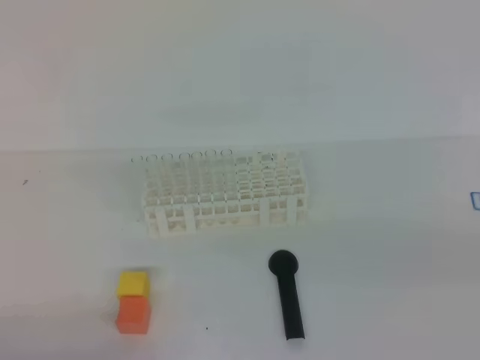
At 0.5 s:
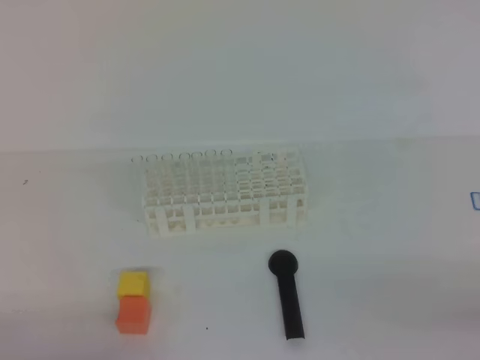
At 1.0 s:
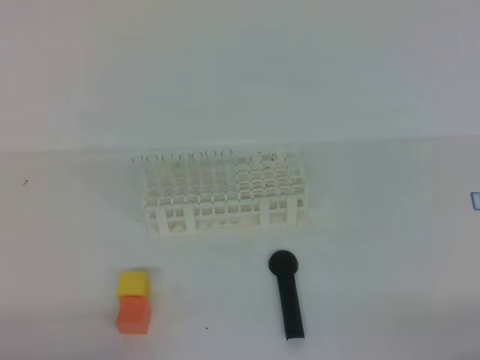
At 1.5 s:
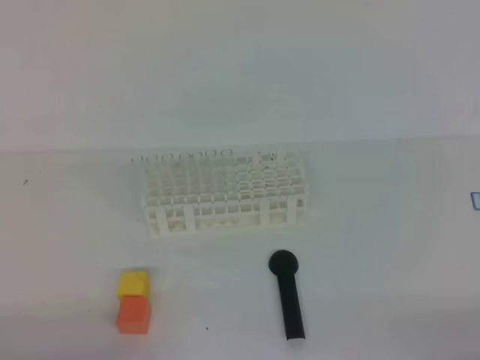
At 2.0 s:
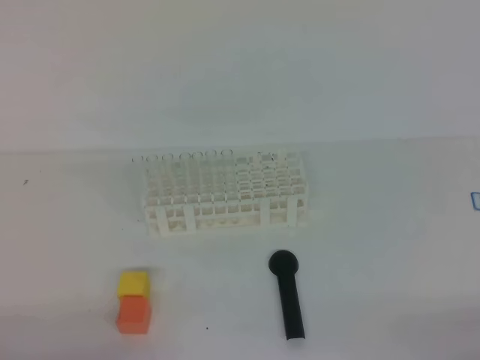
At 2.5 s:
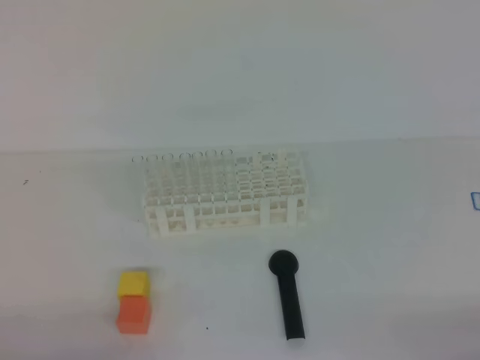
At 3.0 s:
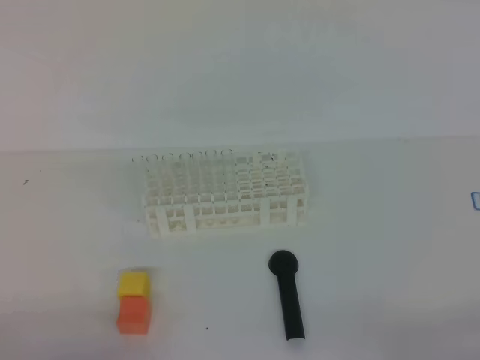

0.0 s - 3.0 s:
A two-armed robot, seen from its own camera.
1.5 s - 3.0 s: The two grippers keep their place.
